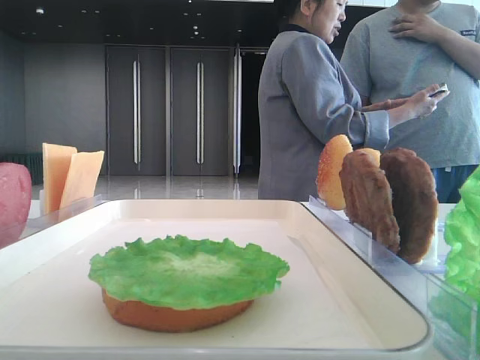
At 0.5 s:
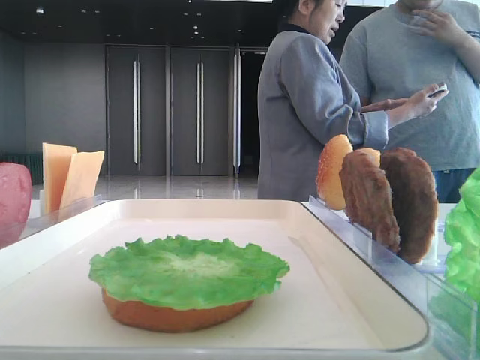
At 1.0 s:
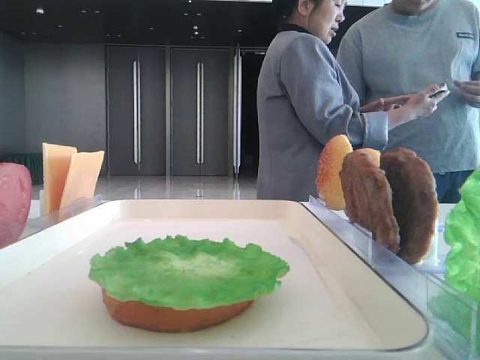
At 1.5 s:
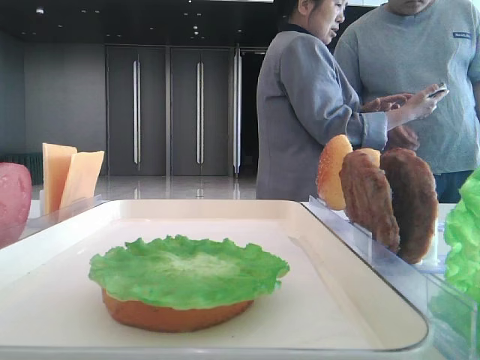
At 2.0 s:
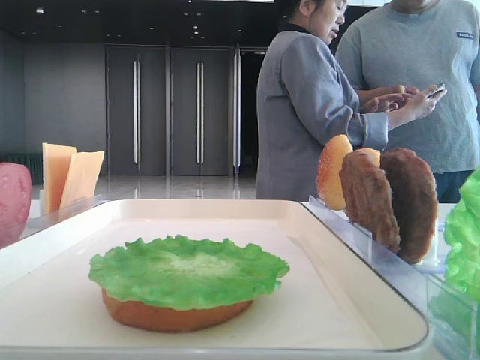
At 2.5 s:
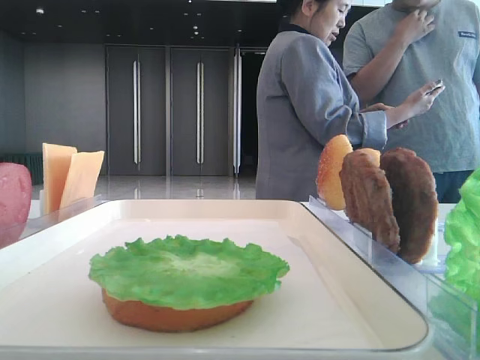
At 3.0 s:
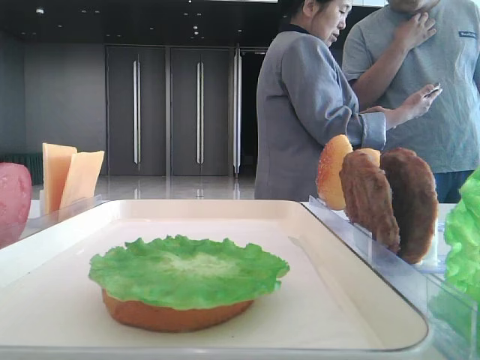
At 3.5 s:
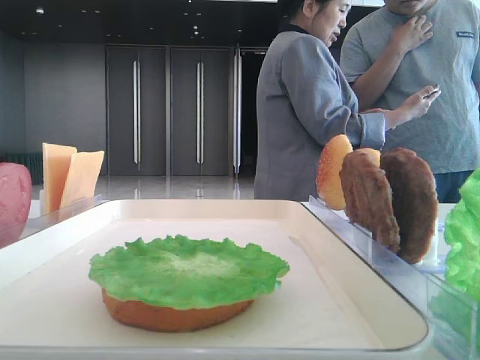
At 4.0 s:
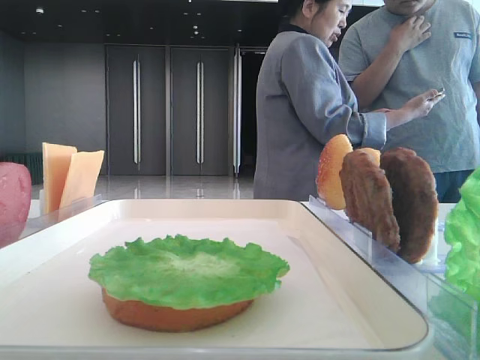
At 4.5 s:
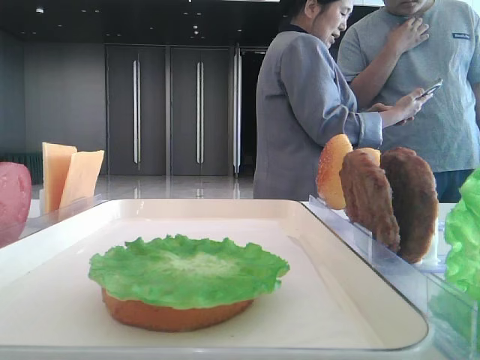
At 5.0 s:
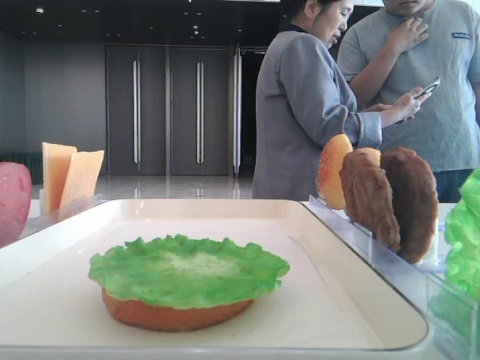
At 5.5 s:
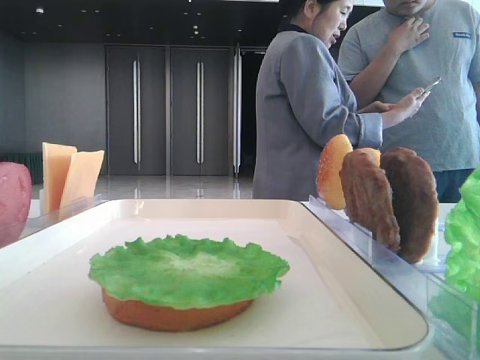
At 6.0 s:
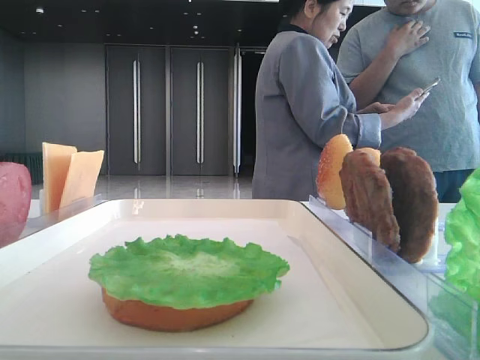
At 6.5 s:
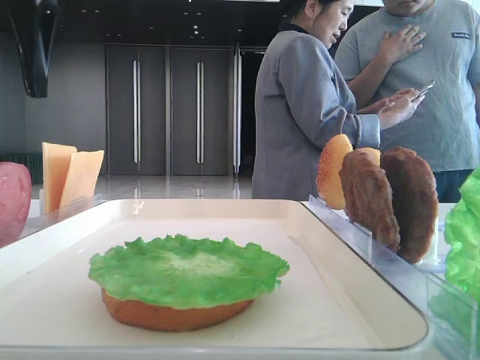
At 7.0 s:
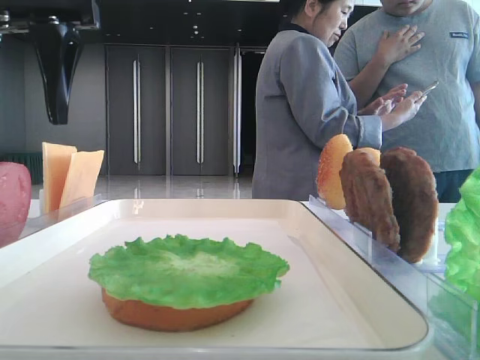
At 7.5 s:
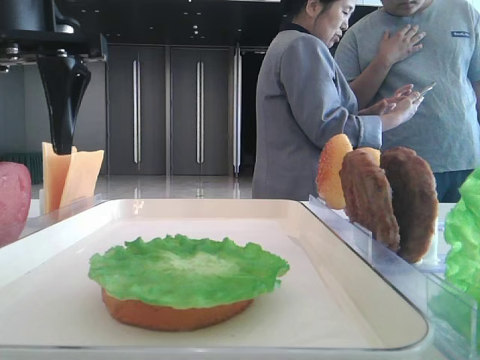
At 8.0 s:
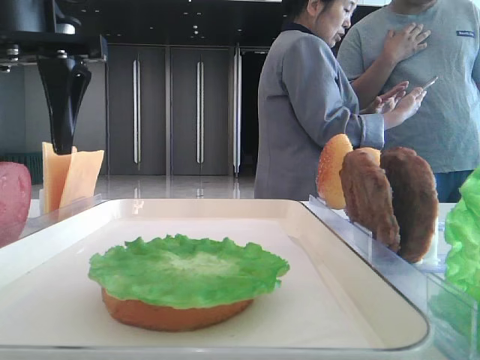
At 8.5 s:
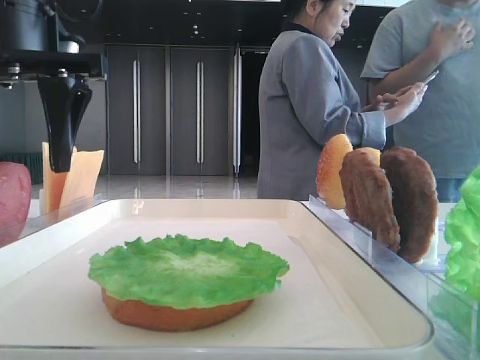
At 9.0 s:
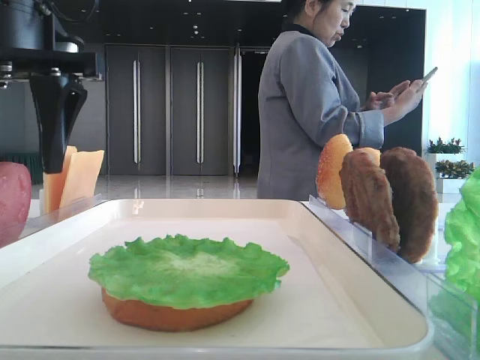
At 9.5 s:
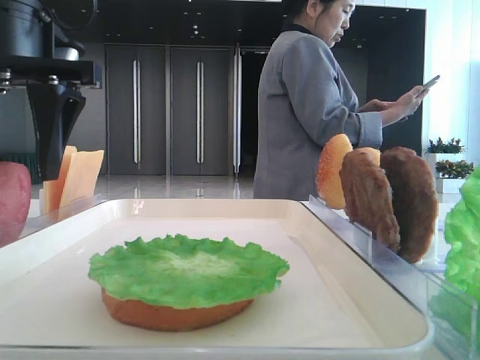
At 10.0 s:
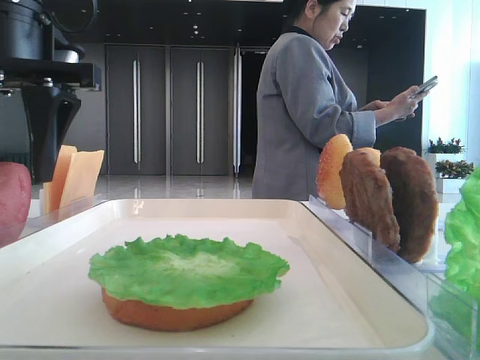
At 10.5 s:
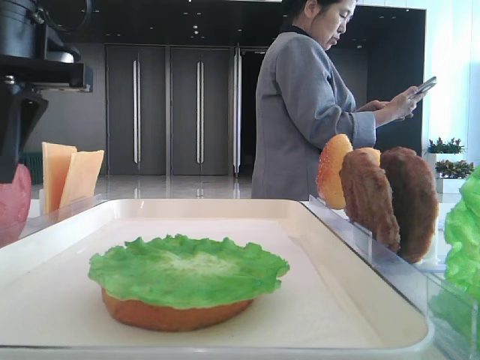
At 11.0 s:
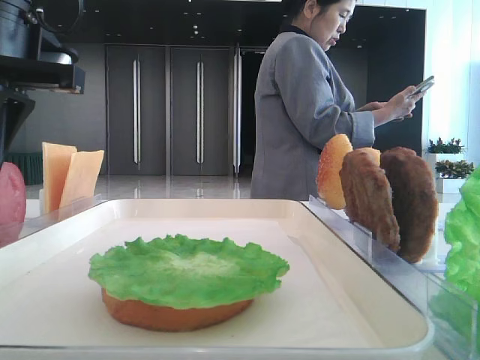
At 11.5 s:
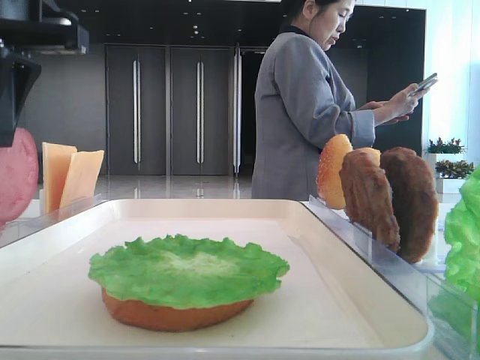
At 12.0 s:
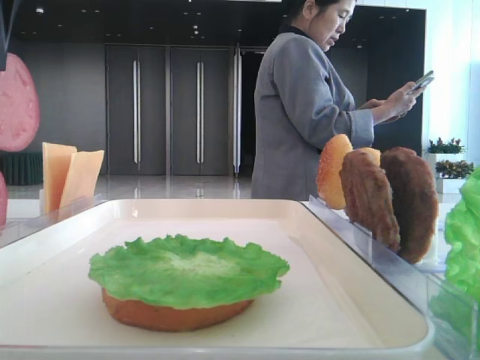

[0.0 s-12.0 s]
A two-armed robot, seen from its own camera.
Step, 0.0 to 11.0 s: Pick up the tomato slice with the left hand.
6.0 to 8.0 s: The left gripper travels forward and downward by some 10 cm.
8.0 to 10.0 s: The grippers stay close to where they were, moving slightly.
10.0 to 12.0 s: The left gripper travels upward by roughly 10 cm, and closes.

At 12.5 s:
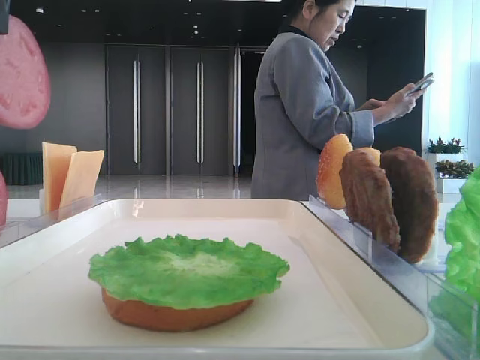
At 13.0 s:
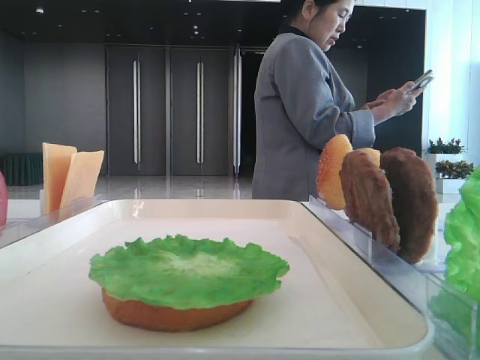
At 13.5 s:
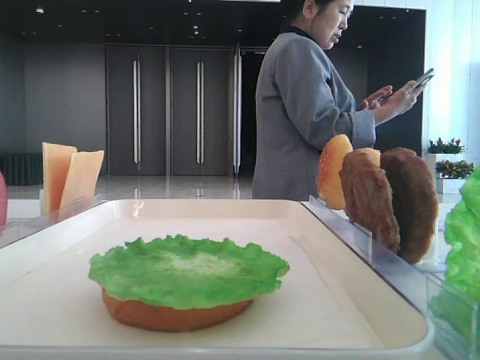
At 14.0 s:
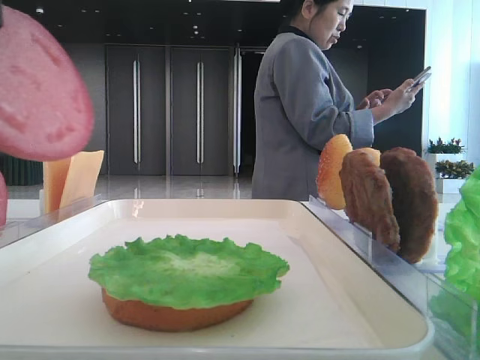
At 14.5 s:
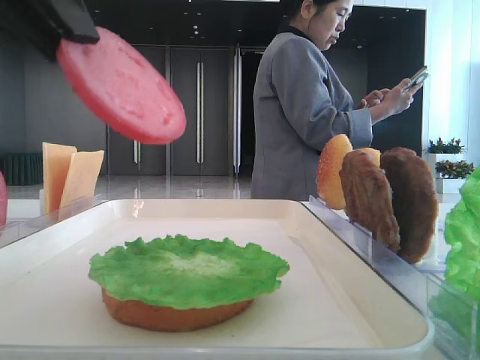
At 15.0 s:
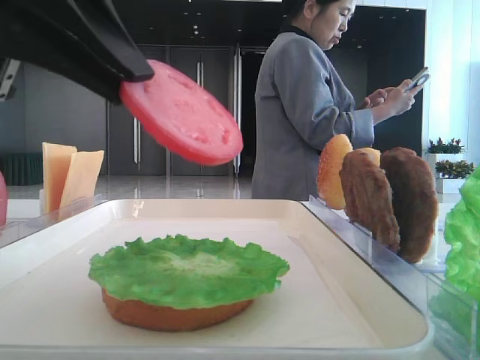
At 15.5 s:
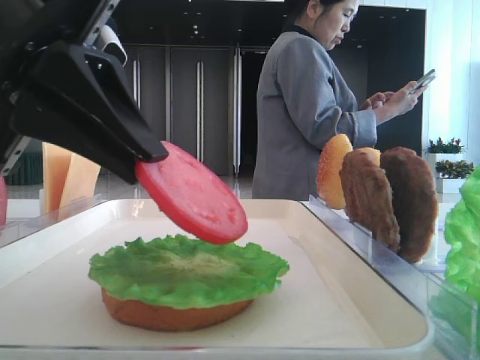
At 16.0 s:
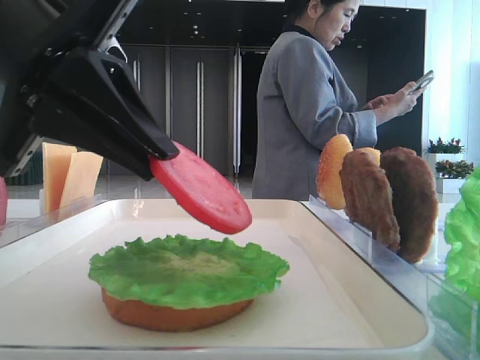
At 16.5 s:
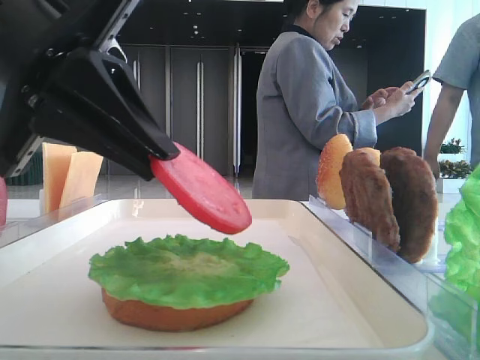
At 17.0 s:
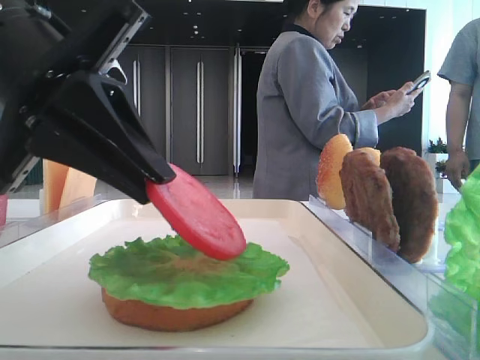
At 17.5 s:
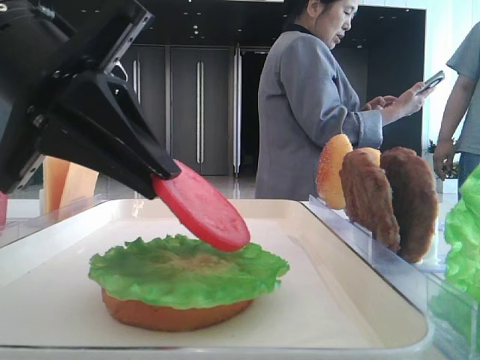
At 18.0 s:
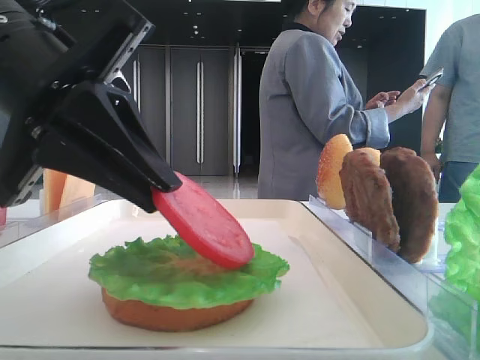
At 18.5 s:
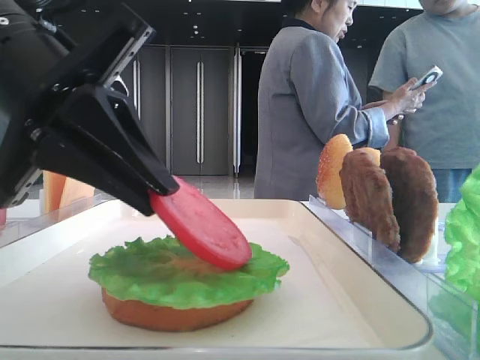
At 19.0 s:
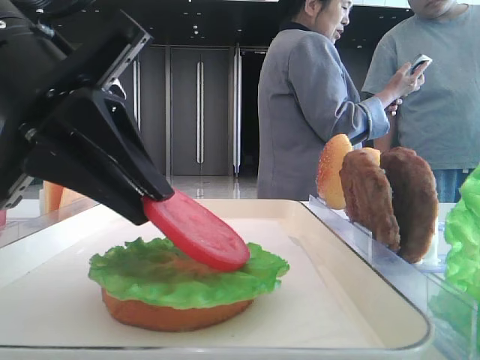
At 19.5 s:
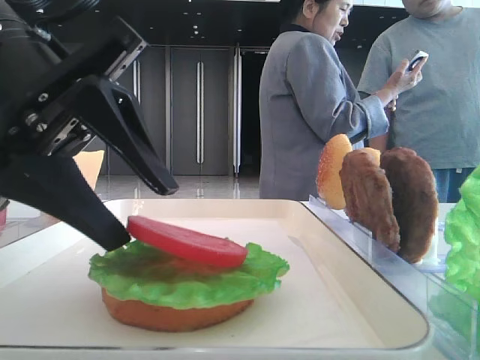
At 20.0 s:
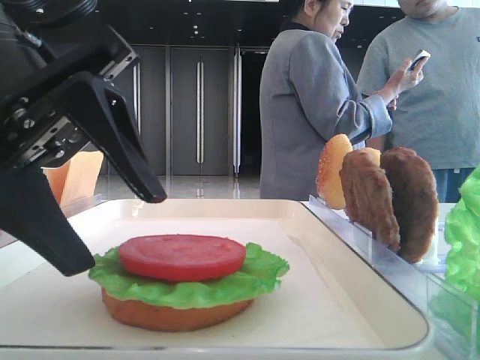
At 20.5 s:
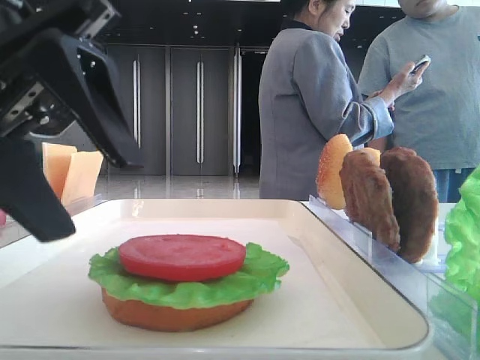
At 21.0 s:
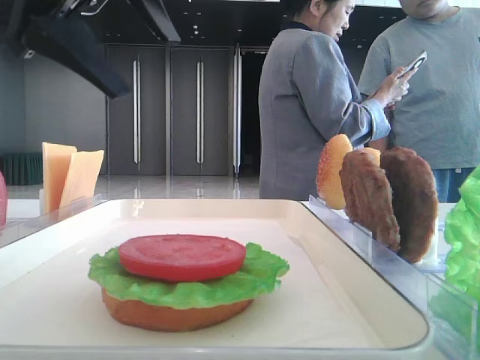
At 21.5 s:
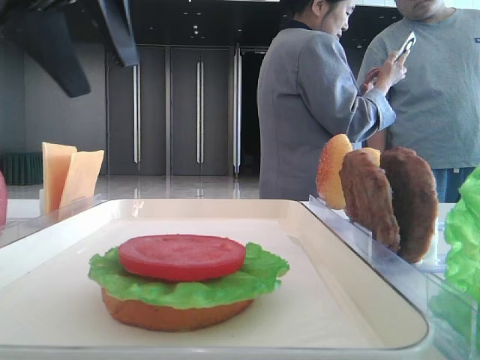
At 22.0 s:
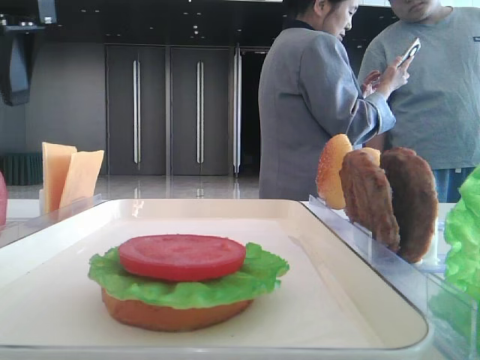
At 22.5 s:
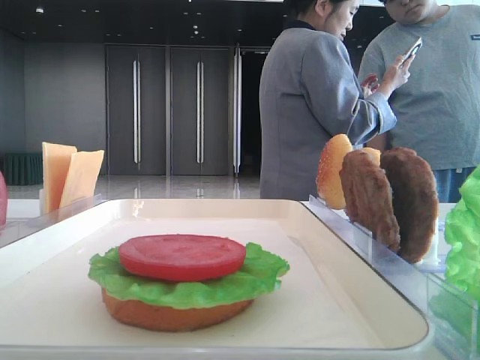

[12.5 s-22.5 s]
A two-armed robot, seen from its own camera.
Step, 12.5 to 19.5 s: Place the tomato slice on the lettuce leaf with the left hand.
12.5 to 14.5 s: The left gripper is displaced downward by roughly 5 cm.
14.5 to 16.5 s: The left gripper is displaced downward by approximately 10 cm.
18.5 to 20.5 s: The left gripper opens up.
20.5 to 22.5 s: The left gripper heads to the left, upward and forward, covering approximately 20 cm.

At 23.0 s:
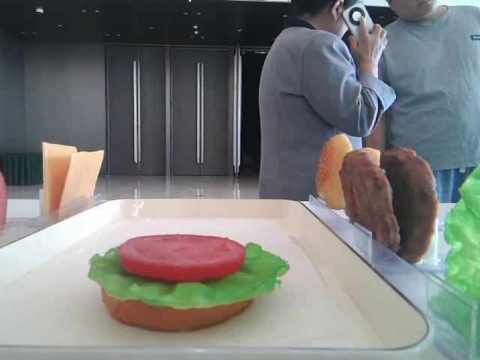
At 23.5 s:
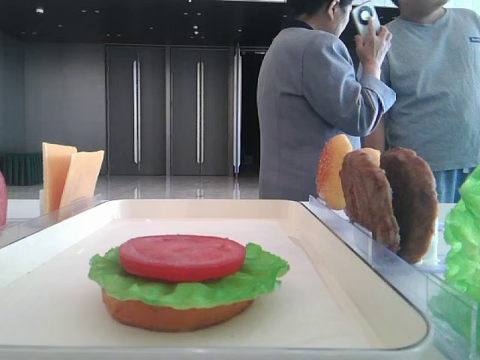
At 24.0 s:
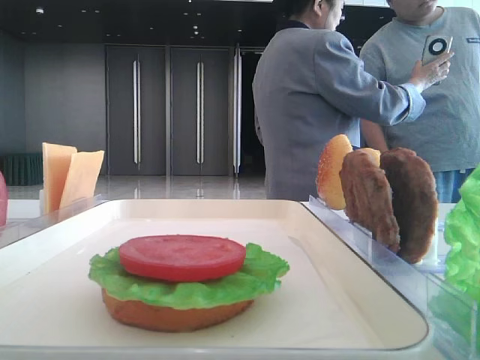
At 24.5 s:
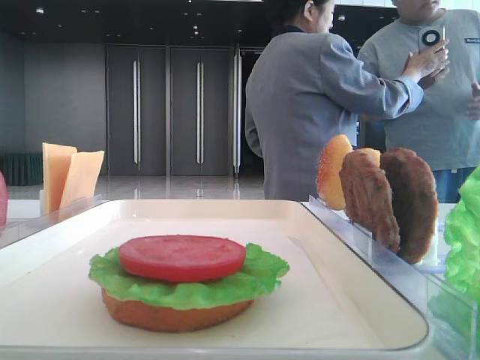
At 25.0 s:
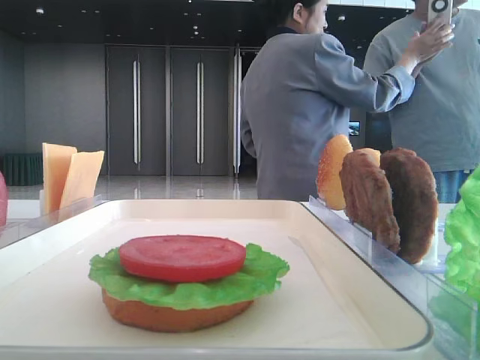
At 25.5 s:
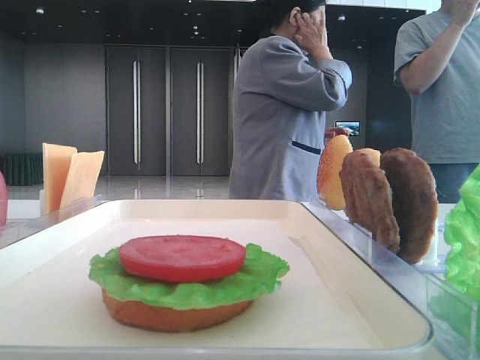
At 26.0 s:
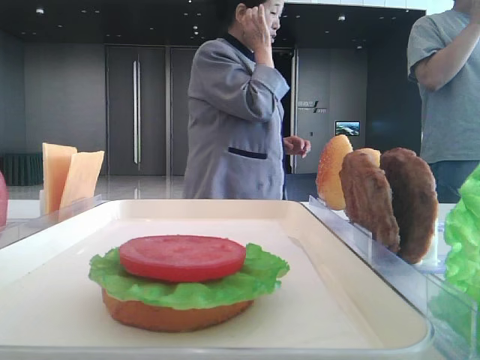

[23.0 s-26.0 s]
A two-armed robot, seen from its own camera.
23.0 to 24.5 s: The left gripper travels backward by approximately 25 cm.
24.5 to 26.0 s: The grippers stay close to where they were, moving slightly.

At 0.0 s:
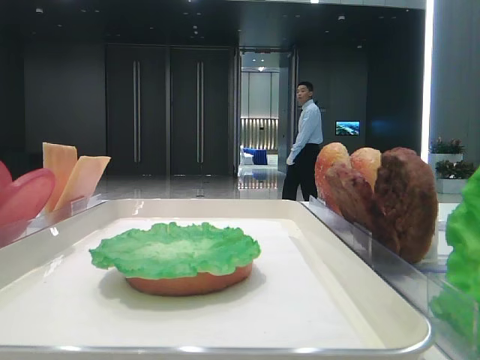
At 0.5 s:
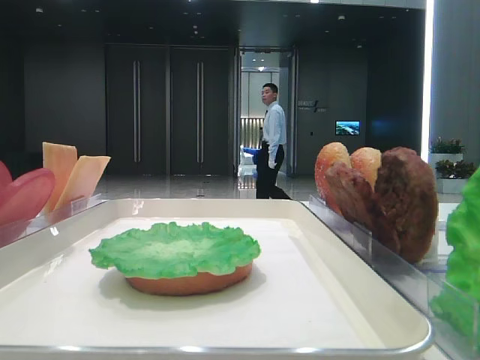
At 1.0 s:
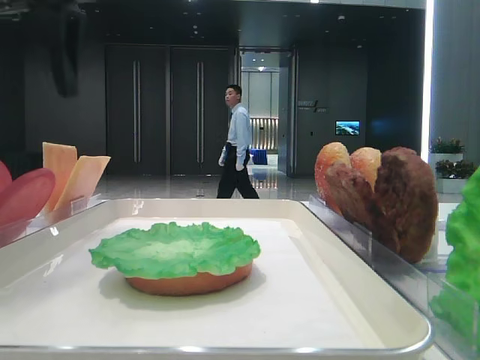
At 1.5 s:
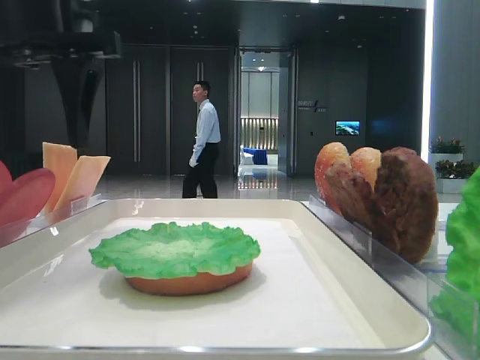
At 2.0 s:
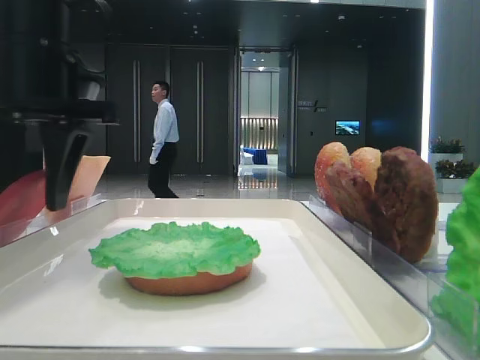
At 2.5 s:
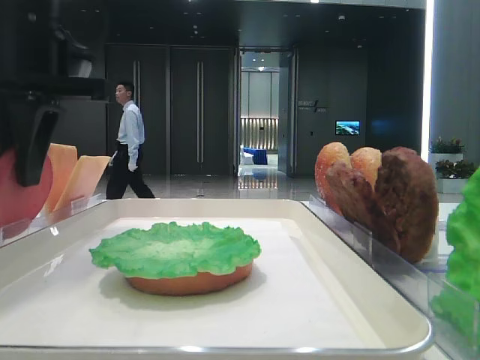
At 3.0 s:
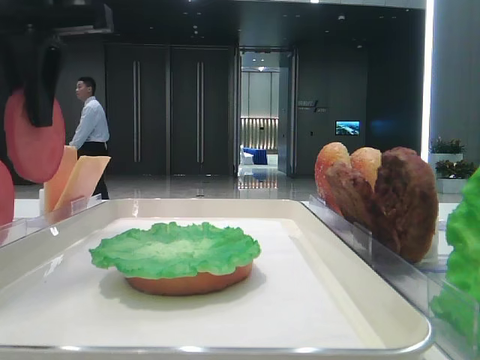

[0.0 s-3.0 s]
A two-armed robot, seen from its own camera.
Step, 0.0 to 2.0 s: Pick up the tomato slice with the left hand.
0.0 to 1.5 s: The left gripper moves to the right, forward and downward, some 15 cm.
1.5 to 3.0 s: The left gripper closes.
